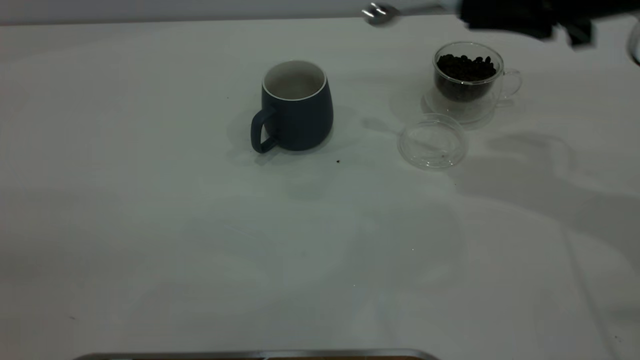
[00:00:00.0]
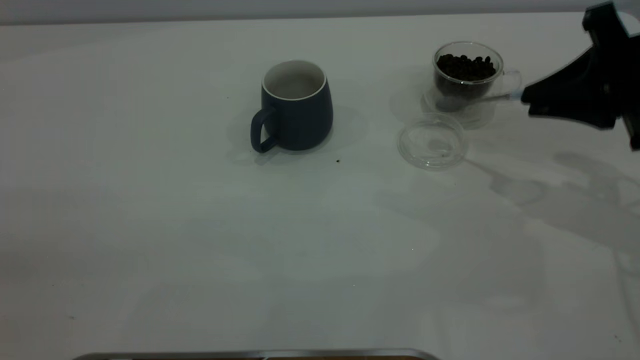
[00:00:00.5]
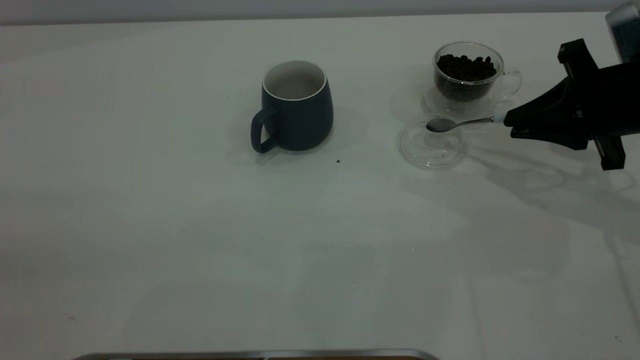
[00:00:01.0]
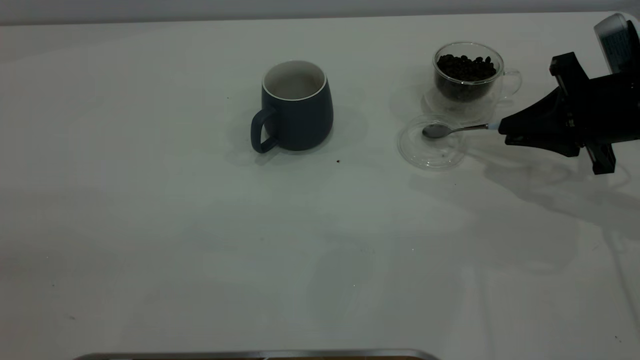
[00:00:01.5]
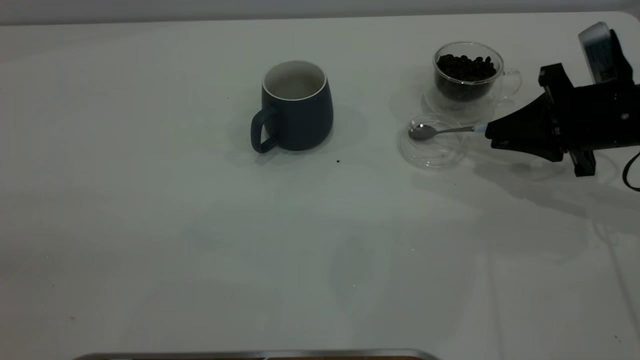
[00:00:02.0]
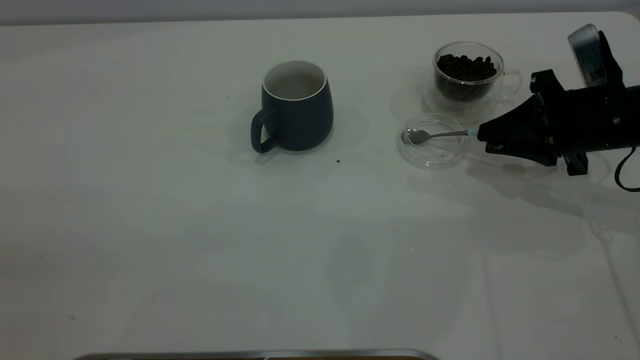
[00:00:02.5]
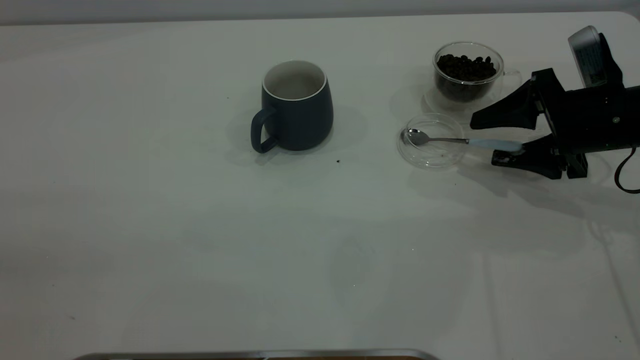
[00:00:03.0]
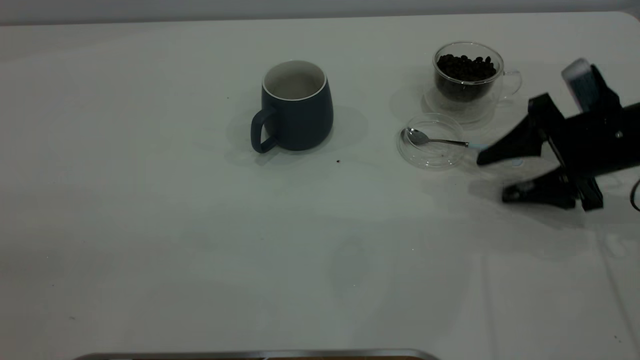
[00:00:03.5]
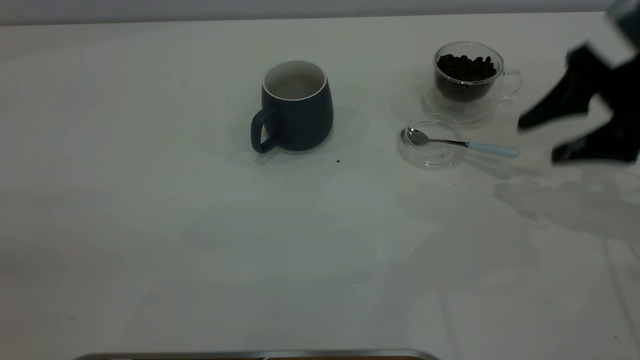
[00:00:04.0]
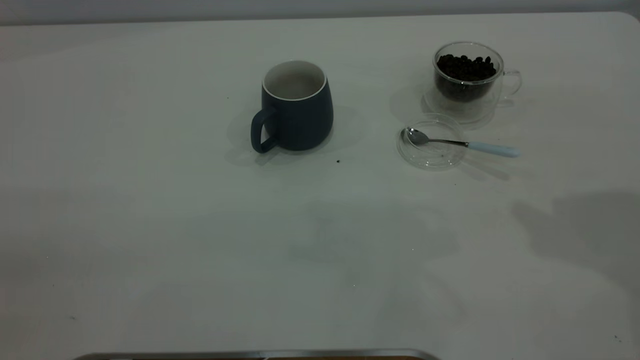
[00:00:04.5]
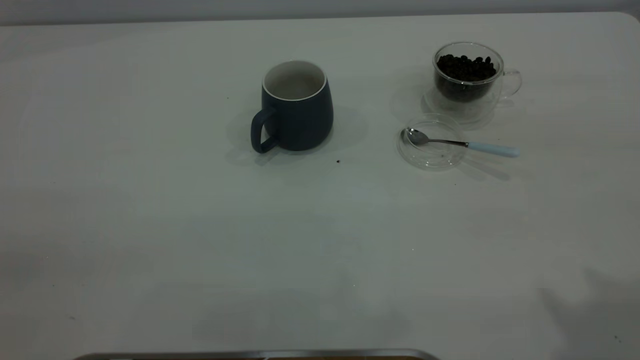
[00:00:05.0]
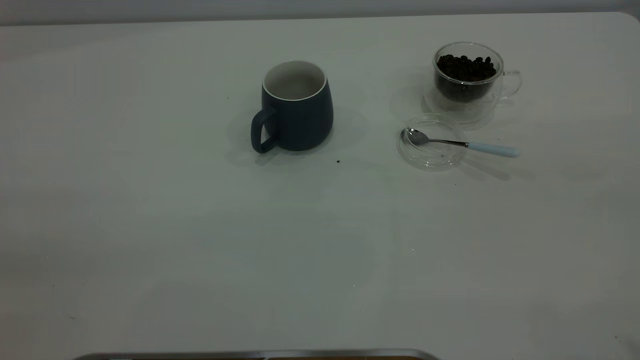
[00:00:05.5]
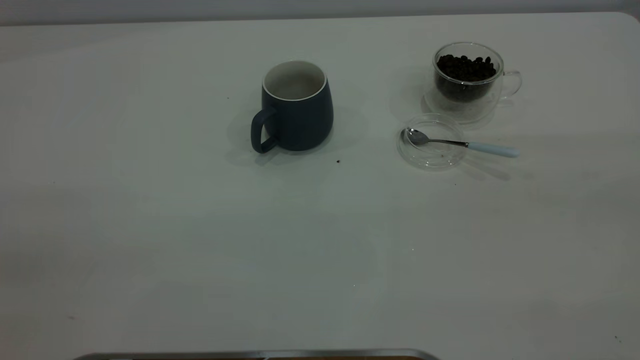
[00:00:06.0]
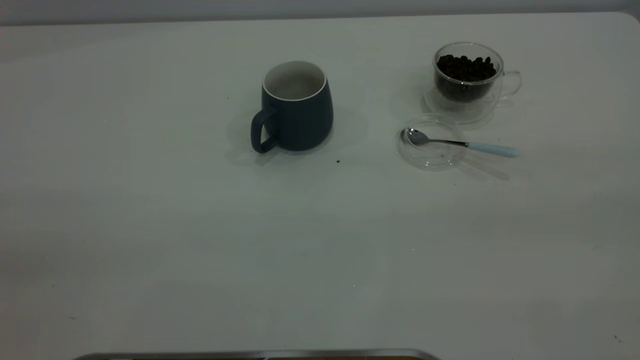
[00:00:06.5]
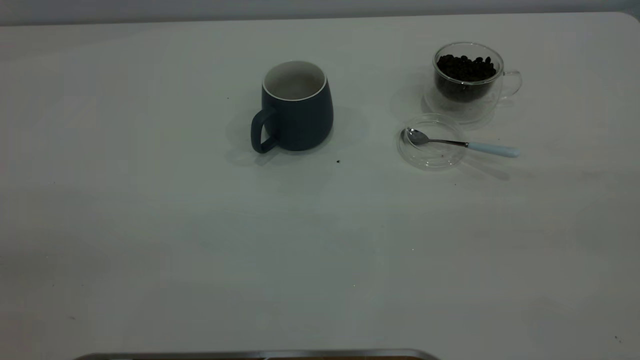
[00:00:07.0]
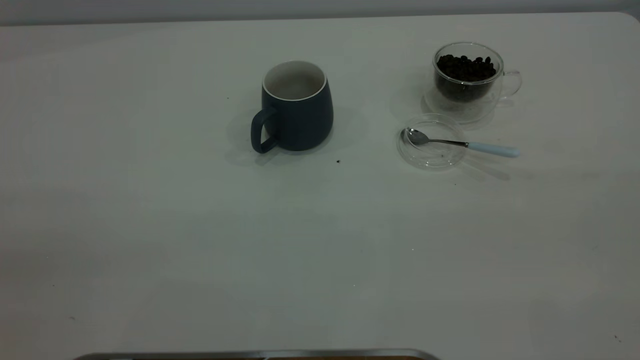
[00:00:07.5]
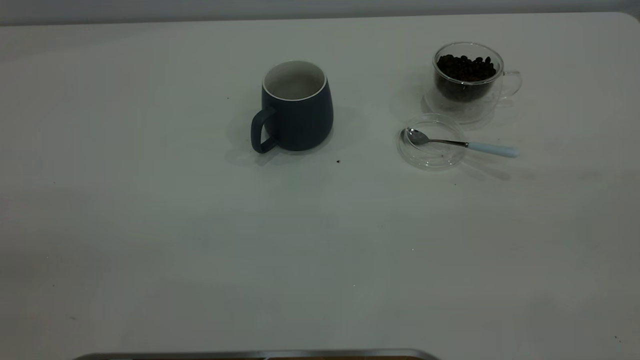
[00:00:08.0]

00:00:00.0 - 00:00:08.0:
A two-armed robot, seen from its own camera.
Task of the whole recording: the left gripper place the grey cup in the center of the table, the right gripper take the blue spoon from the cup lid and scoop out the coffee beans from the coffee cup and put them into the grey cup, the right gripper put the spoon back into the cup lid.
Step, 00:00:00.0 - 00:00:03.5: Place the spoon back in its original place.
00:00:00.0 - 00:00:02.0: The right gripper moves downward, some 15 cm.
00:00:02.0 - 00:00:04.0: The right gripper moves upward, about 10 cm, and opens up.
00:00:04.0 - 00:00:06.0: The right gripper moves backward and upward, approximately 35 cm.
